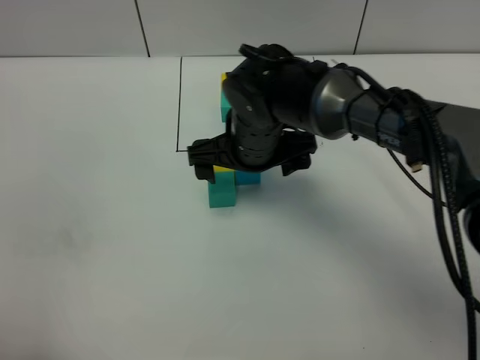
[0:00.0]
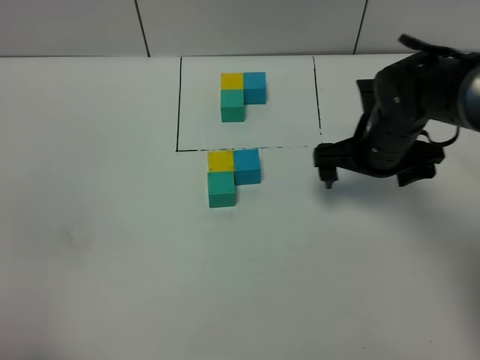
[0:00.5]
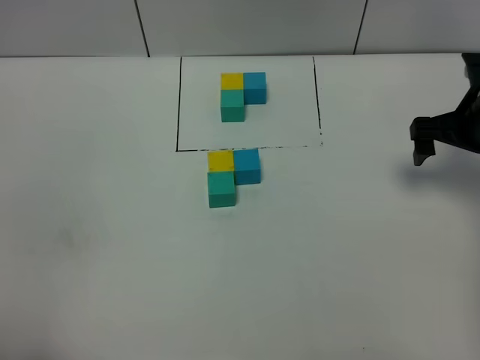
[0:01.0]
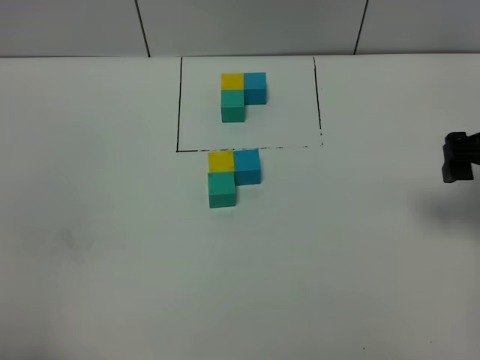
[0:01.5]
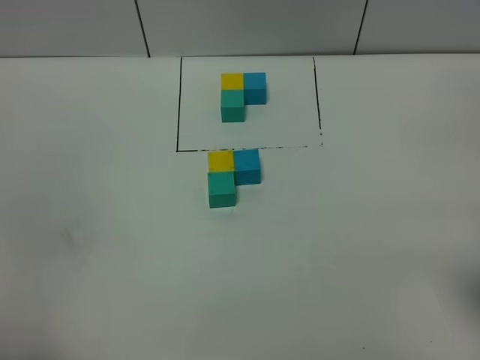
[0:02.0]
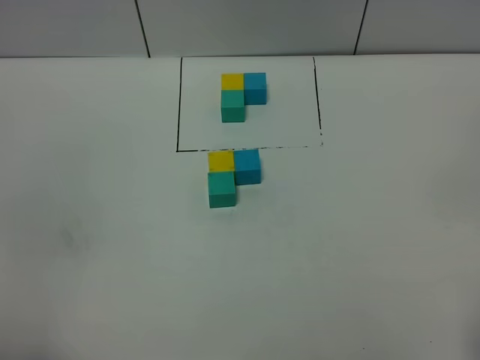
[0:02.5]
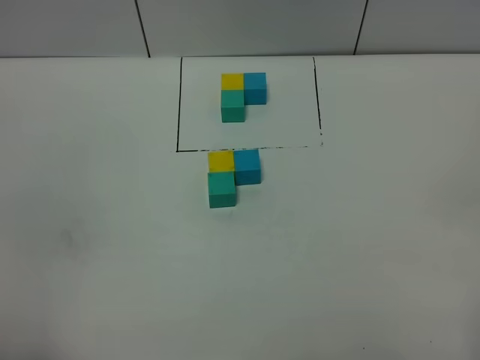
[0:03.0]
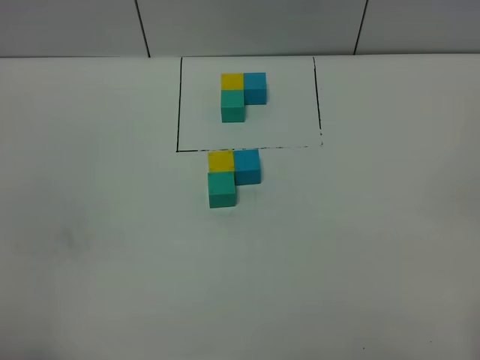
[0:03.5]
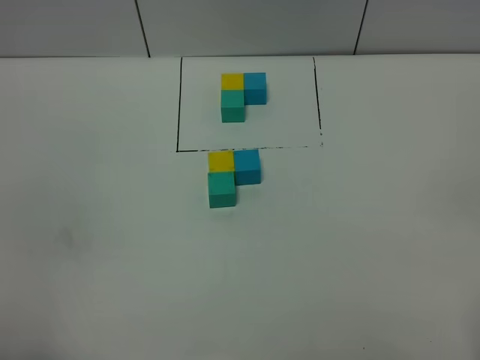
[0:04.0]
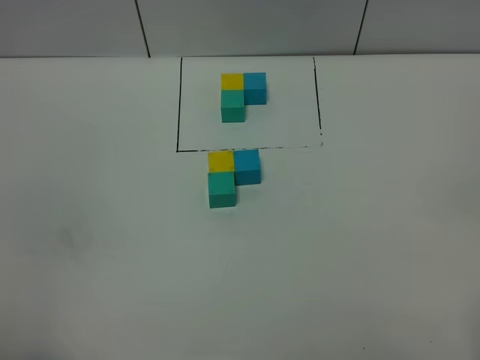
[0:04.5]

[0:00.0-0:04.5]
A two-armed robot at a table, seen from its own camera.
Task of the whole recording: According to the building block template in front, assemble the scattered blocks together.
0:00.0 to 0:02.0: The right gripper moves to the right and backward, roughly 35 cm.

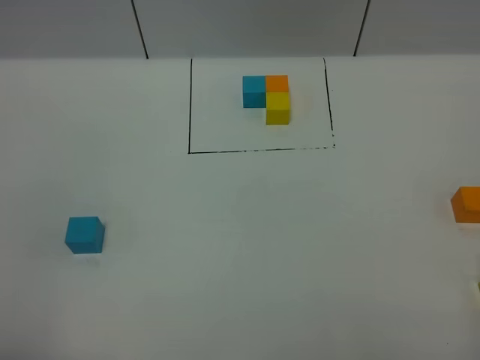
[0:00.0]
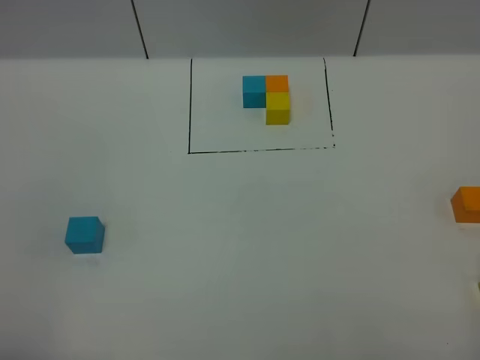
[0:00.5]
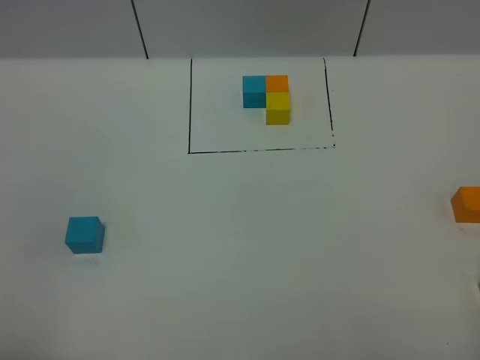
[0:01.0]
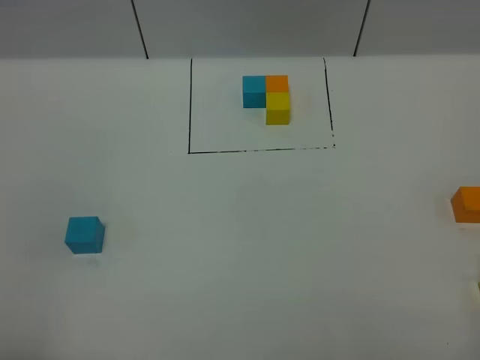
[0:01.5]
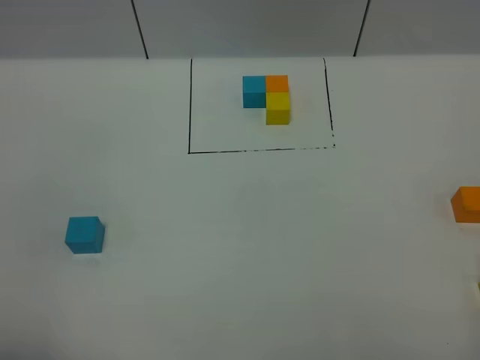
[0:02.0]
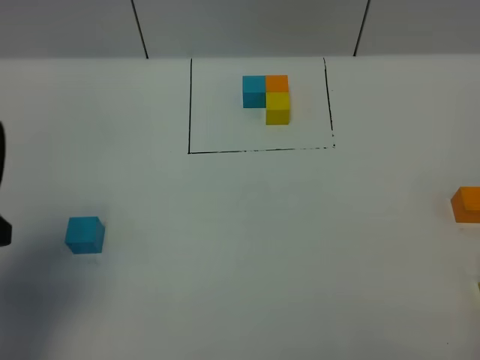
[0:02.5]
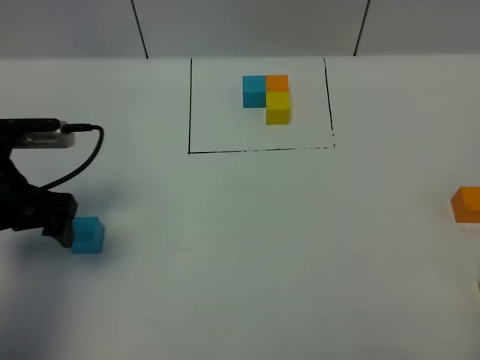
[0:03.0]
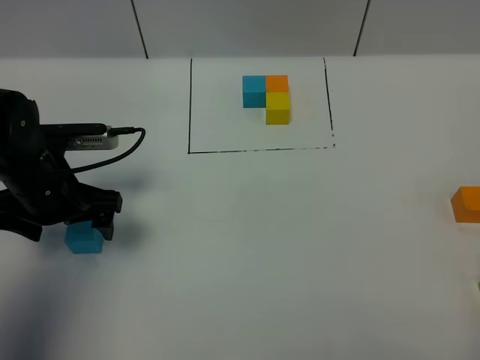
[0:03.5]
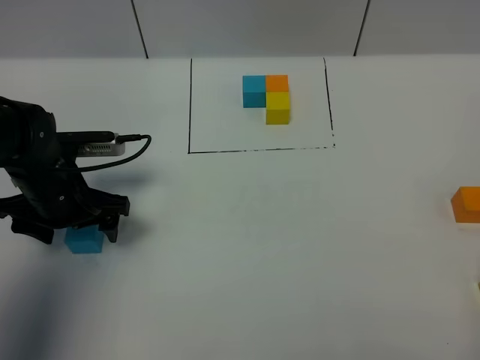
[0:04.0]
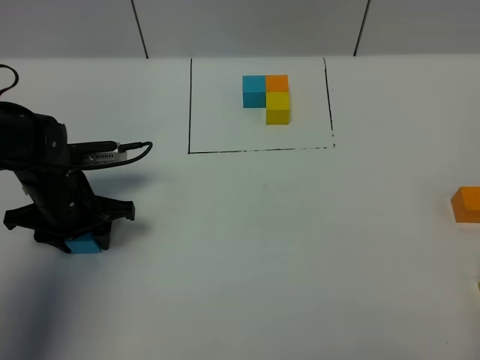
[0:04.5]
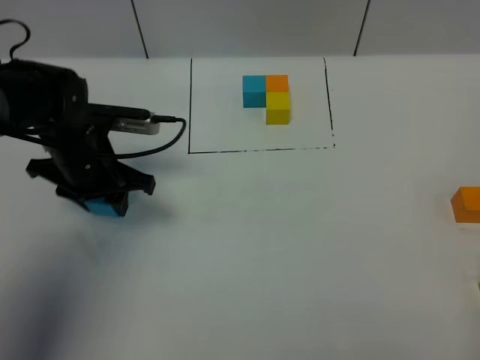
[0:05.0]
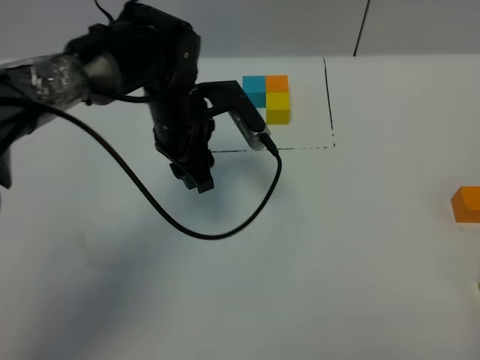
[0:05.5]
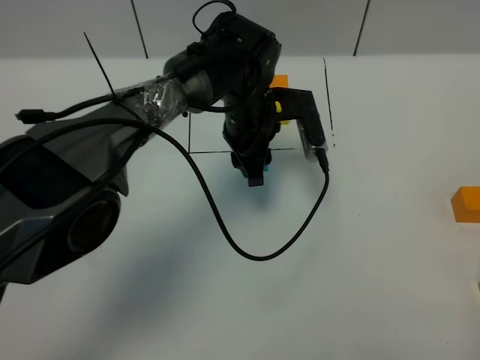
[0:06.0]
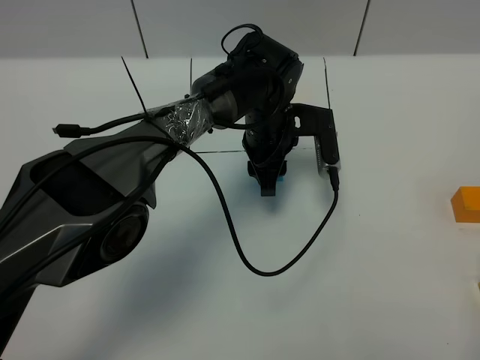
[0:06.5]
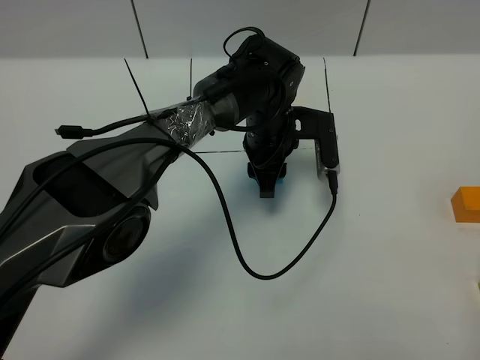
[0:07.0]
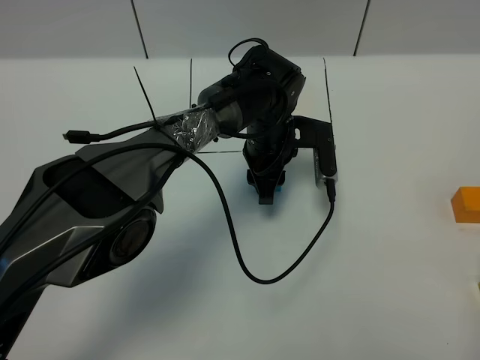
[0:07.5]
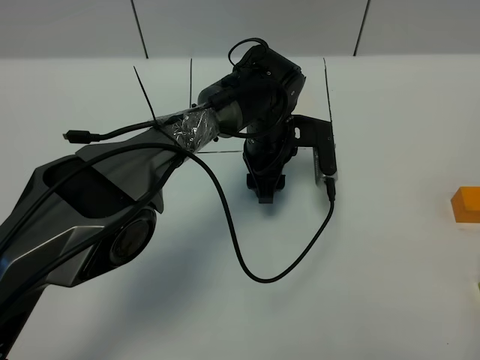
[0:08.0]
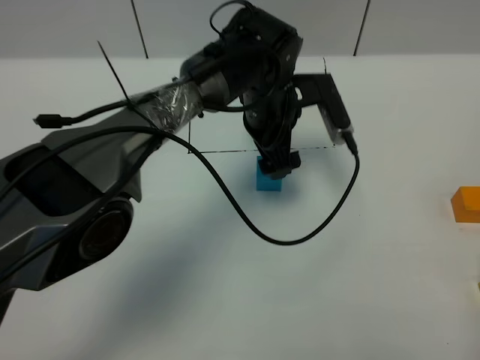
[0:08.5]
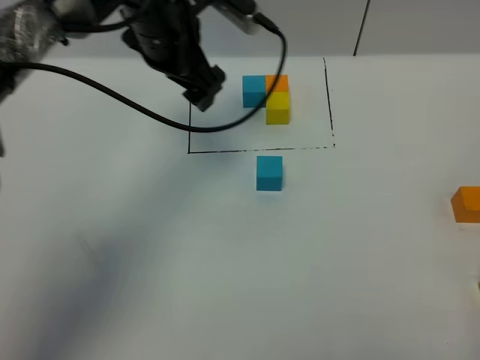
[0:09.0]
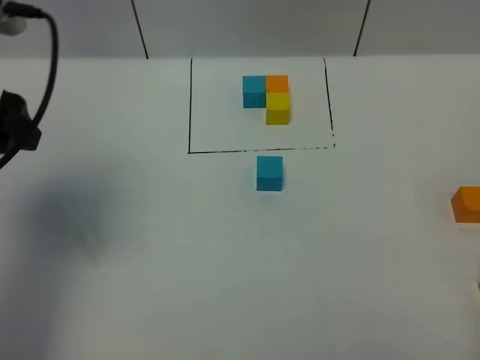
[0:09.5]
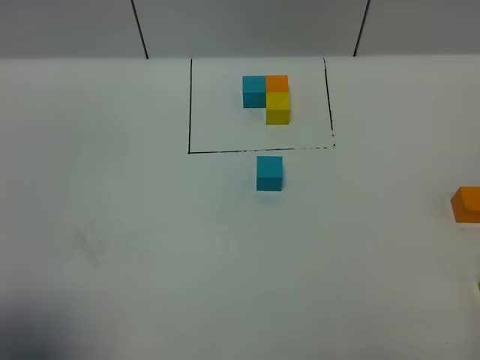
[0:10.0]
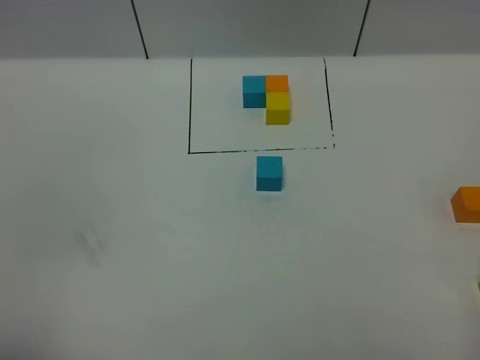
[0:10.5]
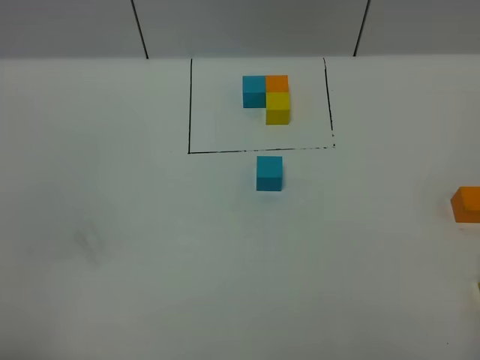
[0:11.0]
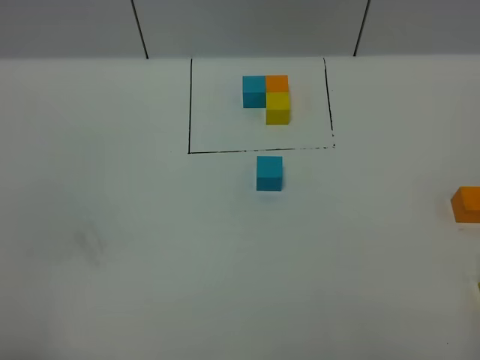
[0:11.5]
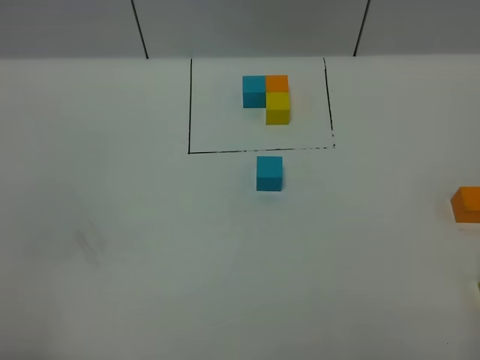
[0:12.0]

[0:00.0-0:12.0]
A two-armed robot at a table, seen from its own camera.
Task of the whole recording: According to the building block template in front, assemble the scattered blocks together.
Step, 0:00.0 to 0:08.0: Put the blue build block in the center of the table.
0:02.0 to 0:04.0: The left gripper moves forward and downward, approximately 35 cm.
0:04.0 to 0:06.0: The left gripper goes approximately 25 cm to the right and forward, and closes.
0:06.0 to 0:08.0: The left gripper changes place by about 5 cm, and opens its fingers.
0:08.0 to 0:10.0: The left gripper goes approximately 50 cm backward, to the left and upward, and opens its fingers.
0:10.0 to 0:12.0: The left gripper goes approximately 10 cm downward and backward, and closes.

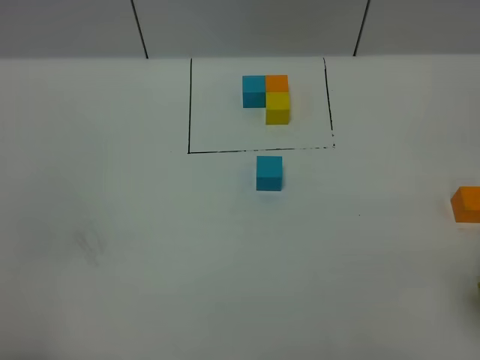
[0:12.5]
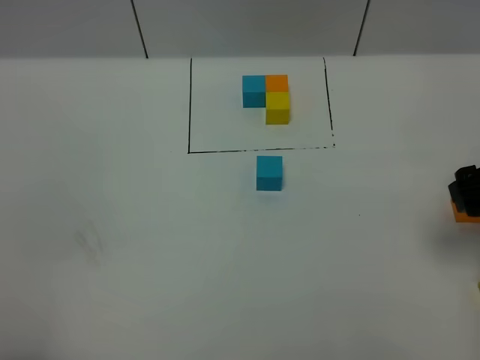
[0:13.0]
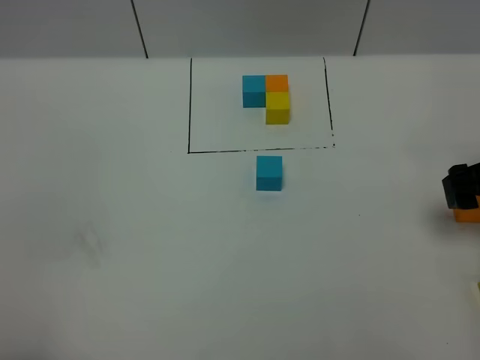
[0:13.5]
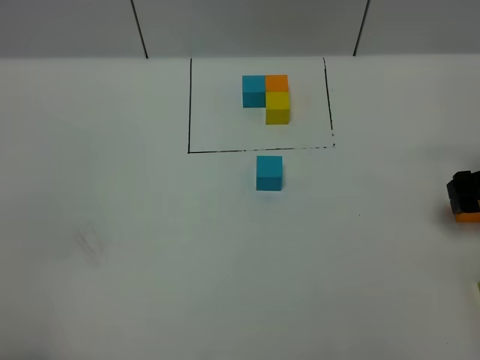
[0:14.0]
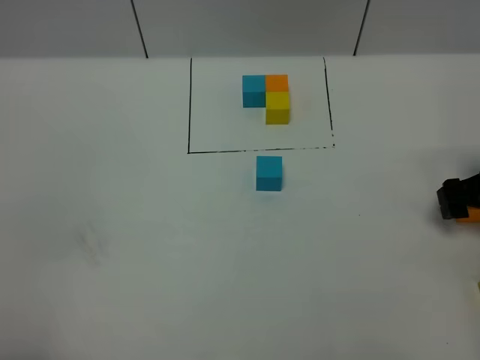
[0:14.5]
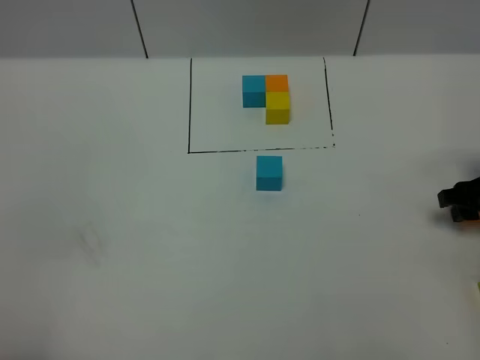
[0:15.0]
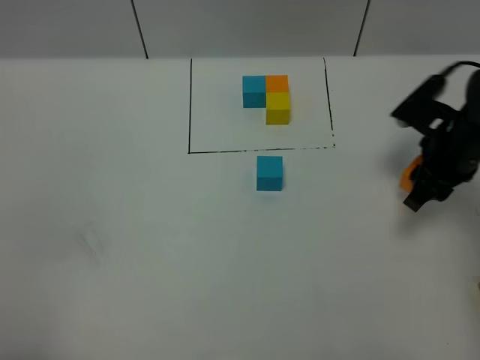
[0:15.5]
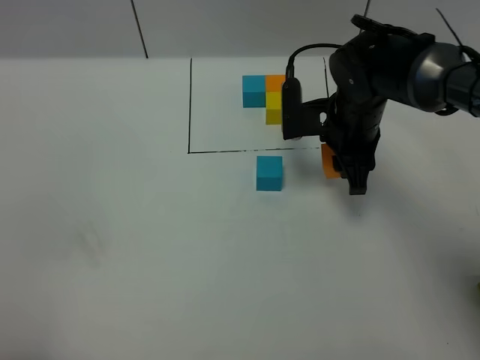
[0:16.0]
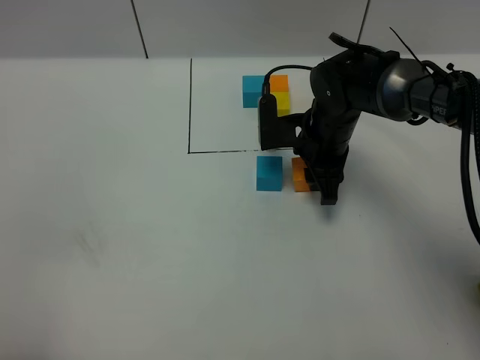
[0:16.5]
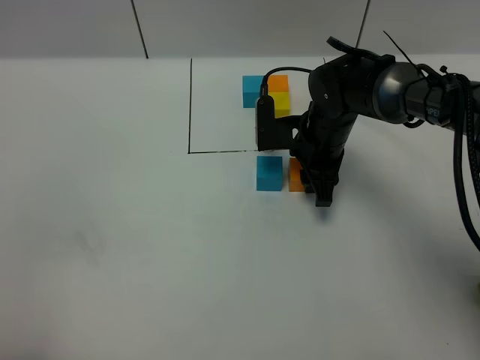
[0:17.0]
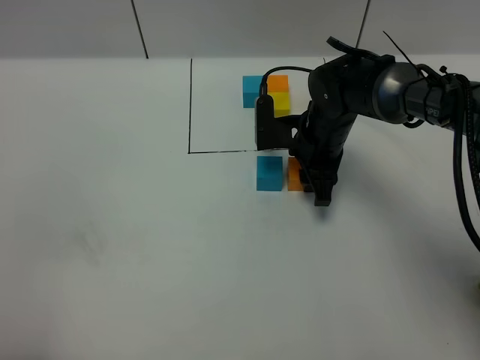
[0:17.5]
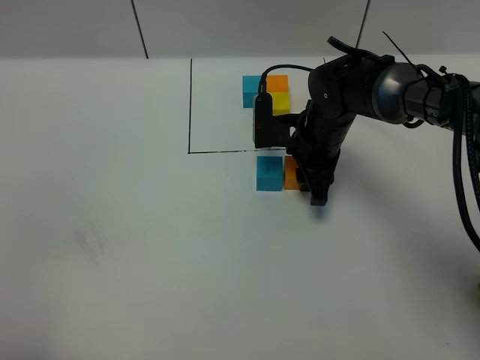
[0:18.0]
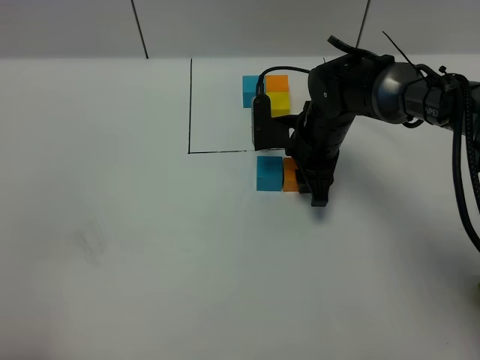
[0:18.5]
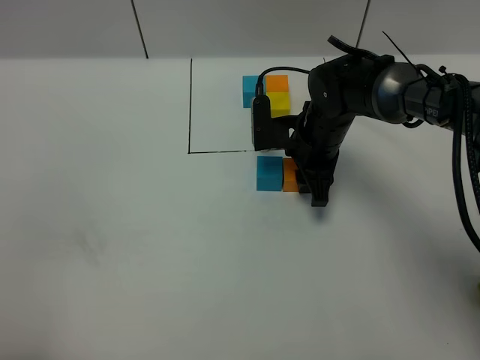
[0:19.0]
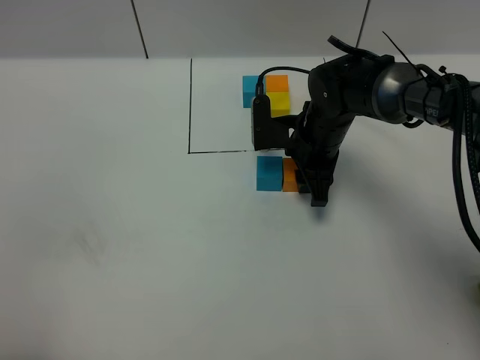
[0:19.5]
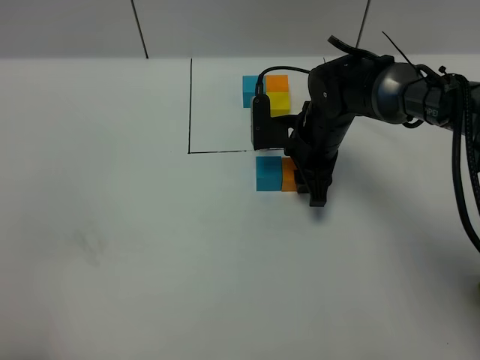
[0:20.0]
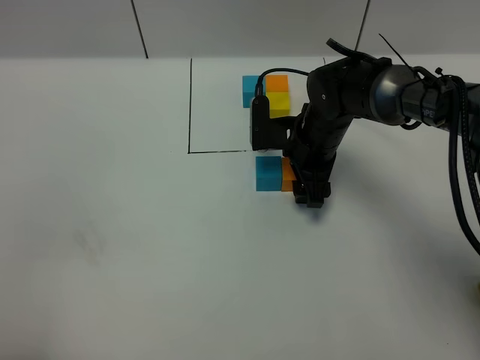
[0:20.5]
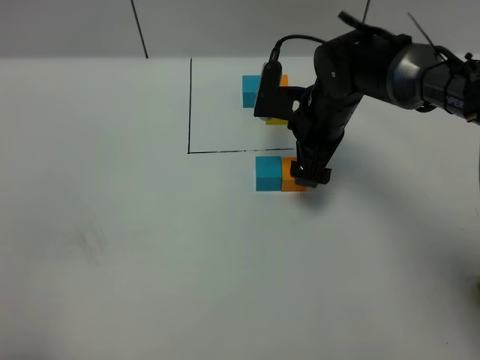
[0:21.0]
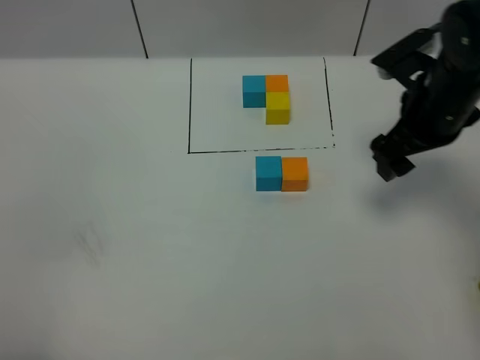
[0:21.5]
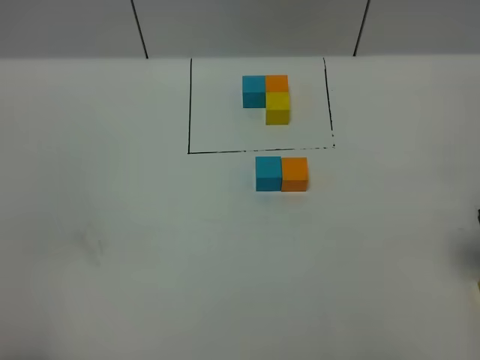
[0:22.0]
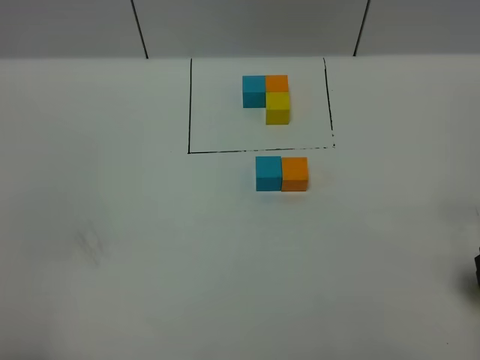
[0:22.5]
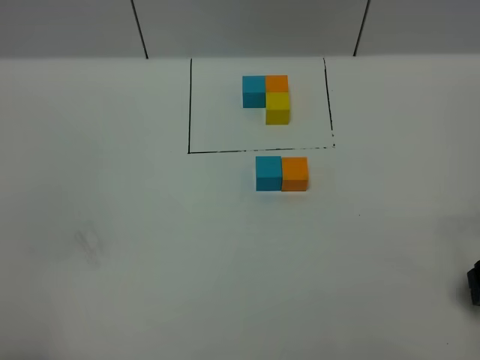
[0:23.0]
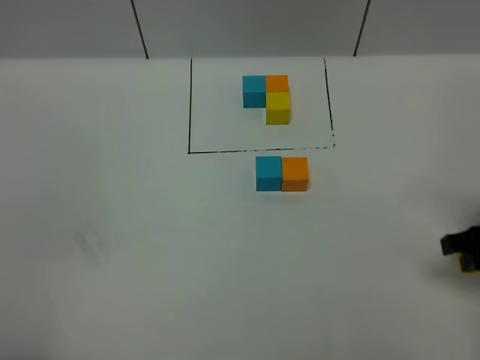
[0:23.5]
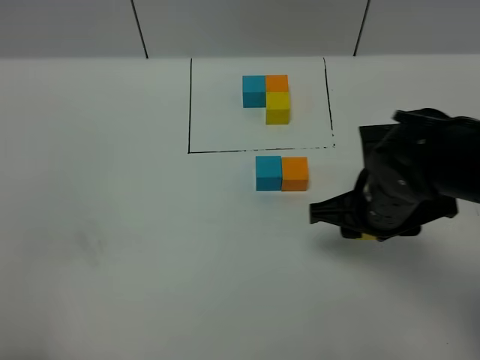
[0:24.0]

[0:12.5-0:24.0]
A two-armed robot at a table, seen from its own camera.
Task of the whole recording: According to the building block template in front, assemble the scattered blocks together.
Step, 0:12.5 to 0:20.0: Put the orange build block on the right of the blue build block.
0:12.5 to 0:14.5: The right gripper heads downward and forward, covering approximately 25 cm.
0:14.5 to 0:16.5: The right gripper shifts about 25 cm to the left, and closes.
0:16.5 to 0:20.0: Neither gripper changes place.
0:20.0 to 0:22.0: The right gripper is displaced to the right, backward and upward by approximately 30 cm, and opens.
0:22.0 to 0:24.0: The right gripper goes about 20 cm to the left, and closes.
